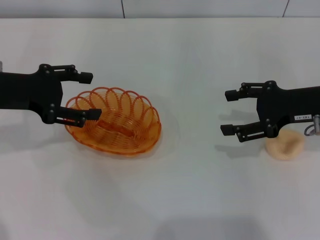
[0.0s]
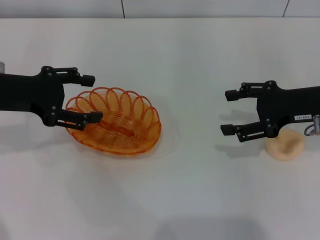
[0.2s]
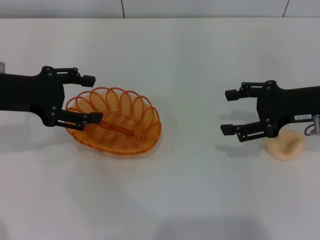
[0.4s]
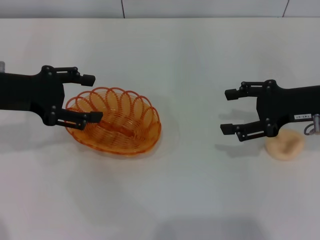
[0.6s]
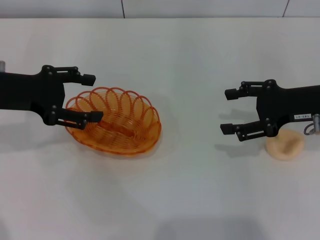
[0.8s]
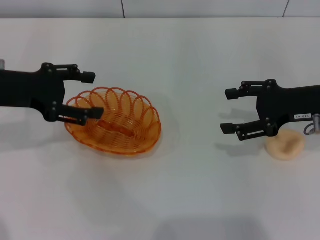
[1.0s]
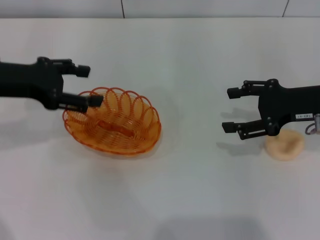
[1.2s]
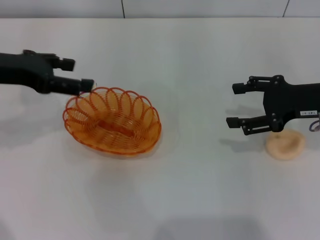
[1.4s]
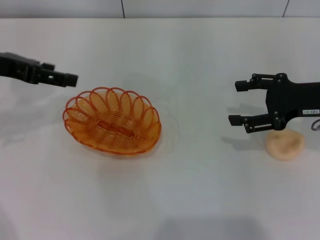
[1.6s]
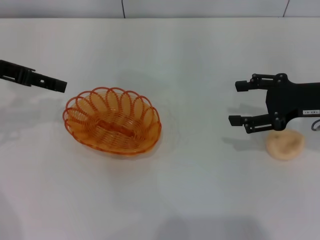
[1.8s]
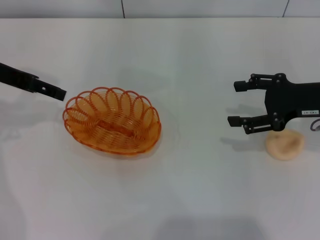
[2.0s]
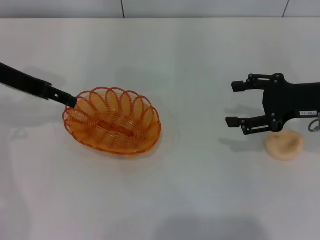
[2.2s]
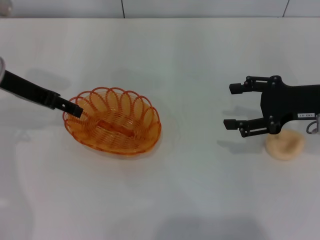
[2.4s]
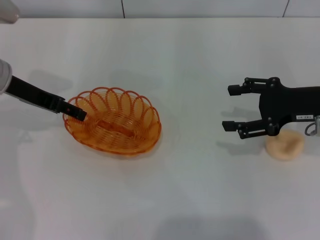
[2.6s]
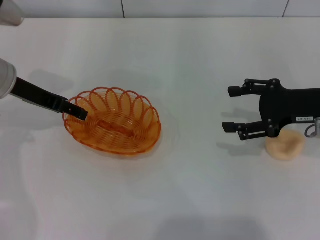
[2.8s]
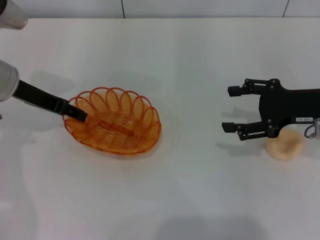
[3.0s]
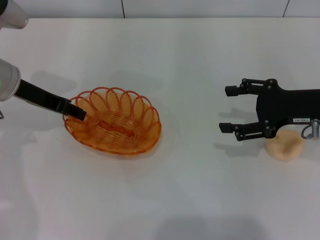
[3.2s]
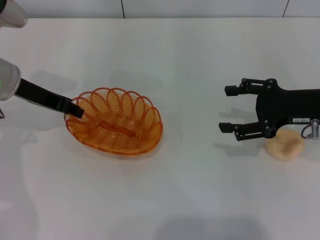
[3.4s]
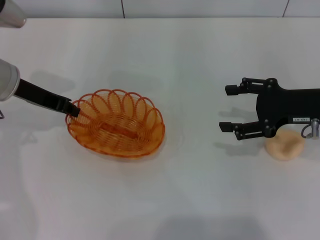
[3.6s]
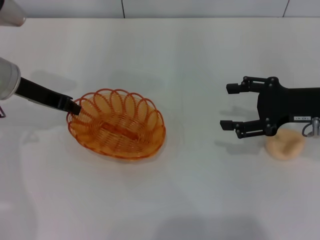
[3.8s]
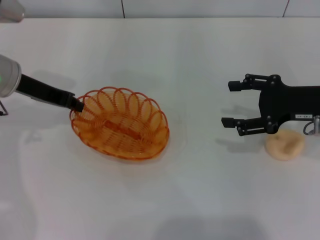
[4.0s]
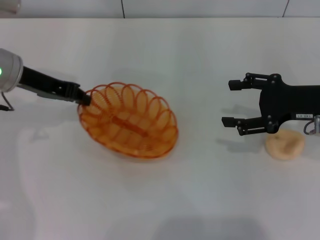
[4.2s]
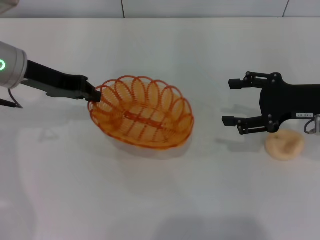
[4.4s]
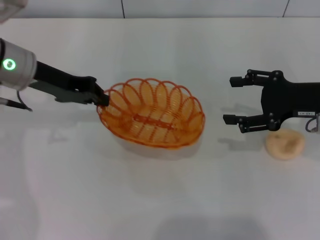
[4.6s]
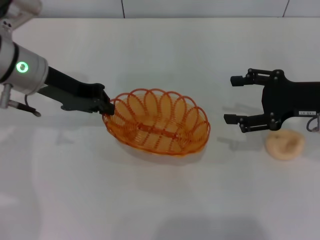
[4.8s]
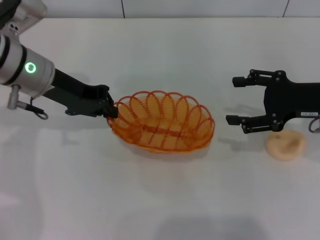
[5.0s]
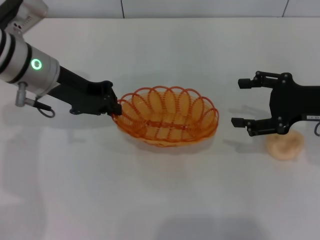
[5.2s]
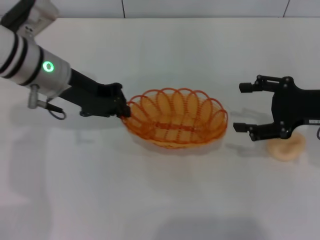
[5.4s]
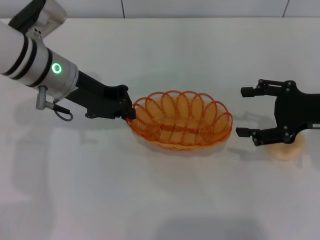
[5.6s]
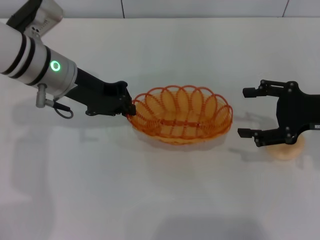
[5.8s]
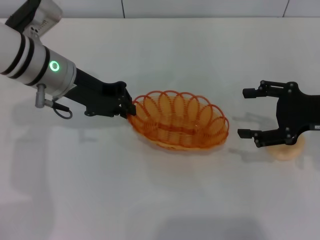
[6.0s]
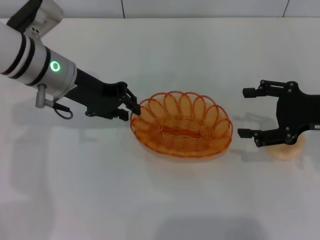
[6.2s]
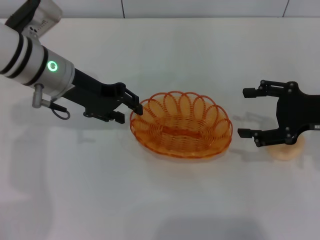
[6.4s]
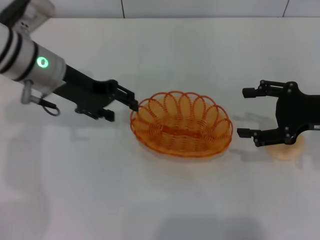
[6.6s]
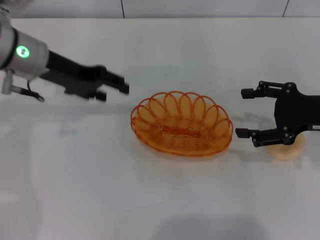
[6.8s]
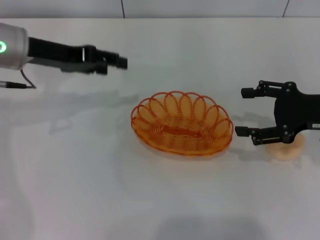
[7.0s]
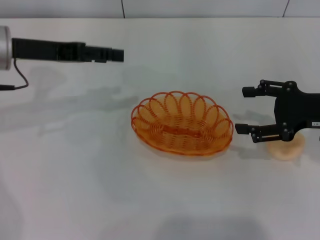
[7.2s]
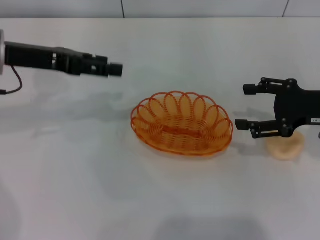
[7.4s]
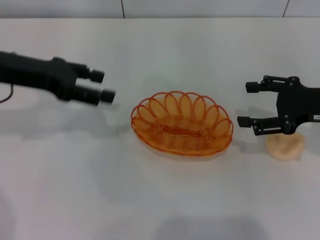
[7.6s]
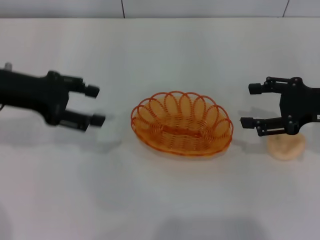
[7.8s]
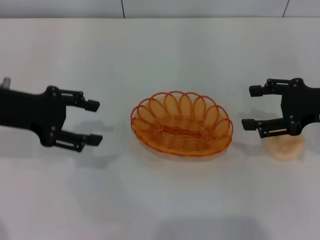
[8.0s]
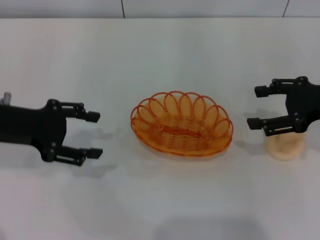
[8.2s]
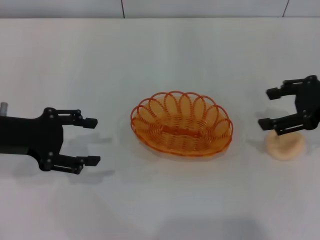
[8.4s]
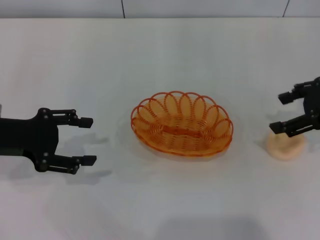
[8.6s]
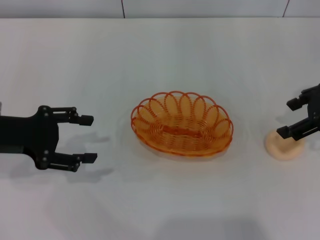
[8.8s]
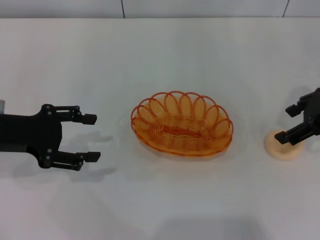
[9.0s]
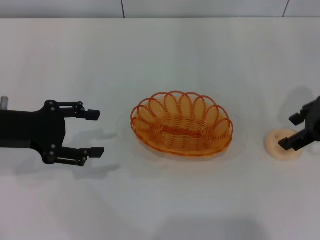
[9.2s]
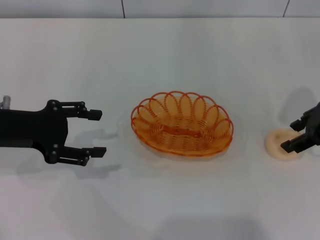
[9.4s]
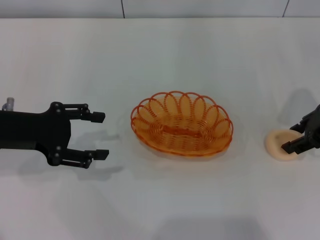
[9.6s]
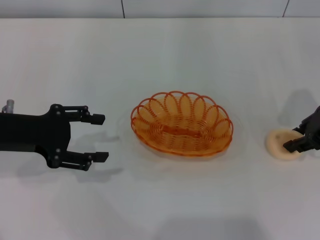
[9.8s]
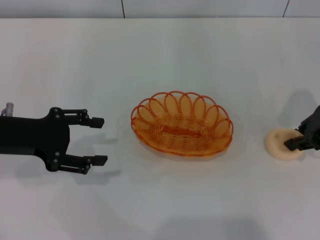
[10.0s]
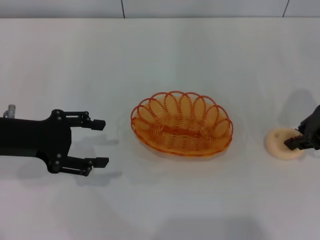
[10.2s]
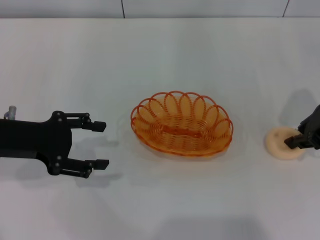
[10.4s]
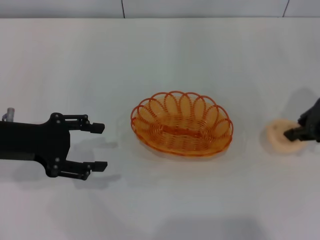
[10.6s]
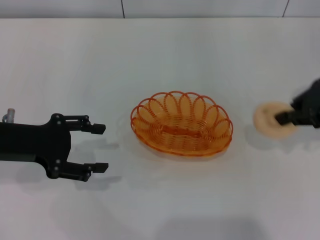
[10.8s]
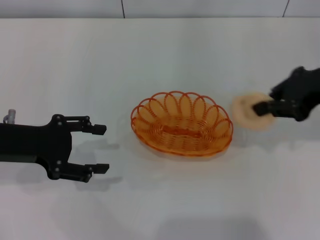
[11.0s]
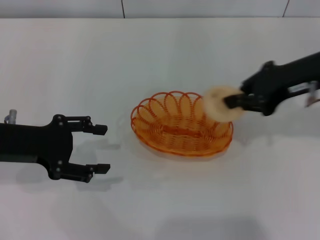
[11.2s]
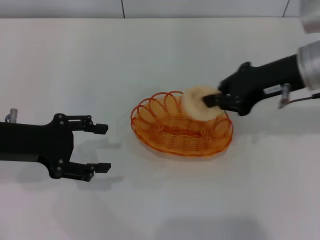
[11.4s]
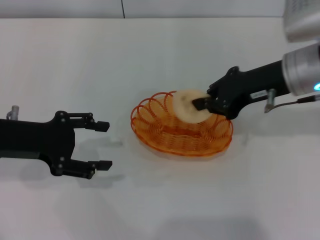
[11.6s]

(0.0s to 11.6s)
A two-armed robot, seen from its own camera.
Step, 0.0s - 4.4s: Pick up the basket with the left gripper.
Step, 4.6s - 6.8s: Place the basket in the center of view with the left gripper.
Step, 7.0s - 11.0s: Pick up the egg yolk pastry with the right gripper.
1.4s - 2.8s: The left gripper changes place by roughly 5 cm.
2.8s - 4.4s: The left gripper closes its fingers.
4.4s - 5.8s: The left gripper shifts some 5 cm to the right.
5.8s - 7.2s: The left gripper is displaced to the left by some 10 cm, and opens.
7.2s - 8.8s: The left gripper shifts approximately 10 cm backward; the right gripper is displaced upward by about 5 cm.
8.8s - 10.2s: The right gripper closes up.
10.2s - 11.6s: The right gripper moves to the left, roughly 10 cm.

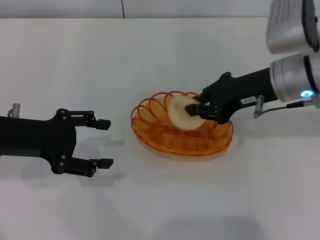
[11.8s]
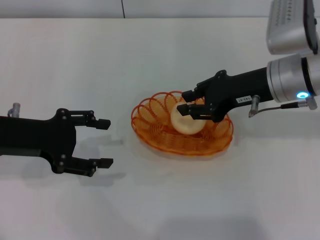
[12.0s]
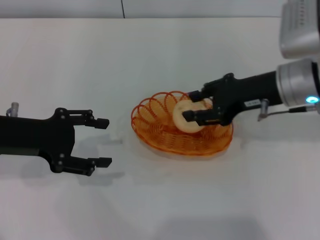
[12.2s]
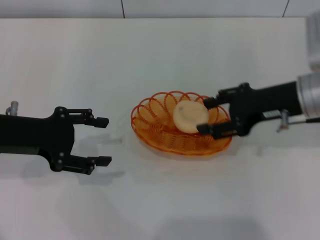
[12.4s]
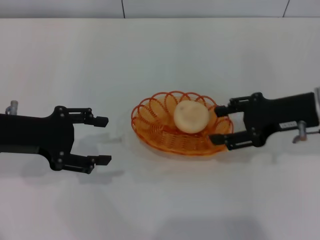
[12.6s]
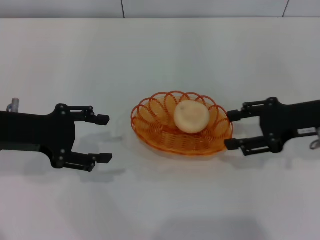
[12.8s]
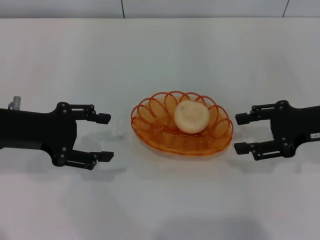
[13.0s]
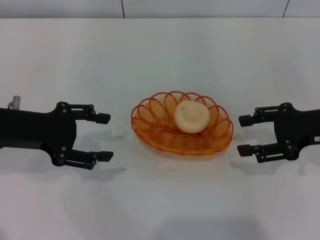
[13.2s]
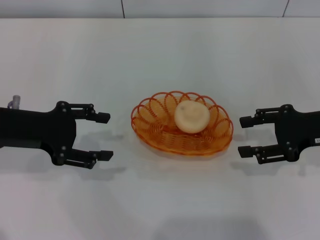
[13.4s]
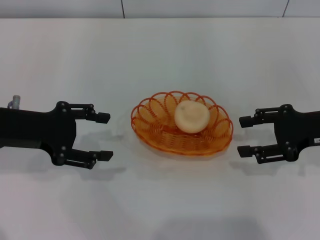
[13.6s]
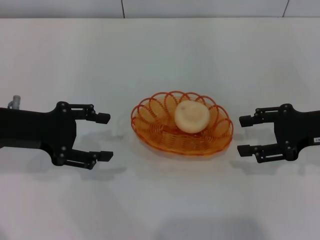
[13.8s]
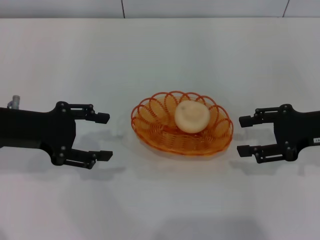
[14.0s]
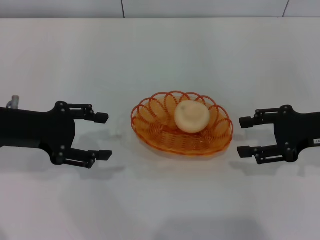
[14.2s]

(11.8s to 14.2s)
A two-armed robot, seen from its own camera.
Step, 11.8s - 12.6s: Place the egg yolk pastry into the basket with the right gripper.
11.8s - 13.0s: The right gripper travels to the right by roughly 10 cm, and opens its fingers.
13.0s - 14.2s: The two grippers keep their place.
